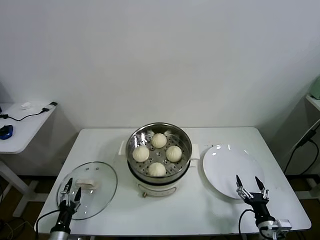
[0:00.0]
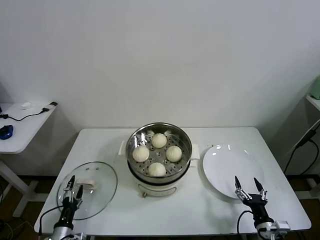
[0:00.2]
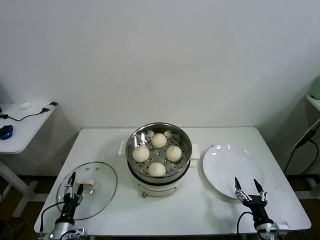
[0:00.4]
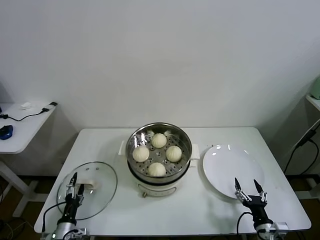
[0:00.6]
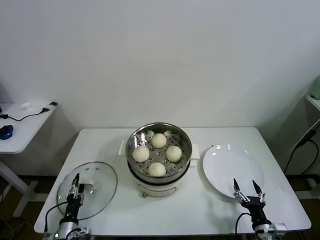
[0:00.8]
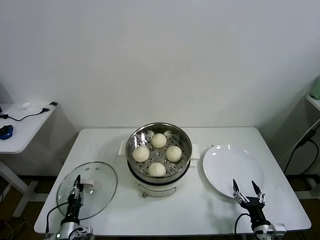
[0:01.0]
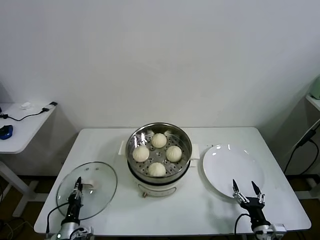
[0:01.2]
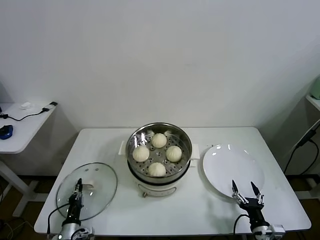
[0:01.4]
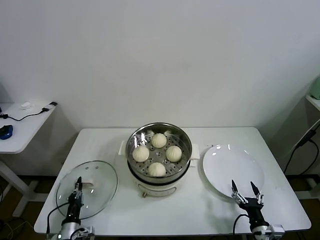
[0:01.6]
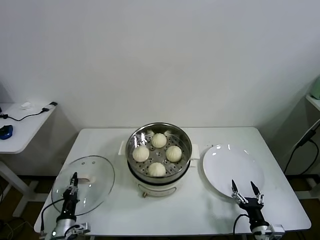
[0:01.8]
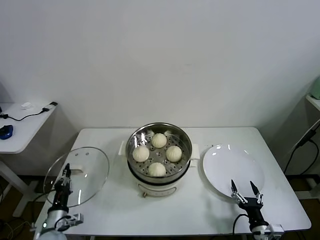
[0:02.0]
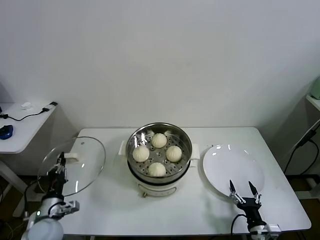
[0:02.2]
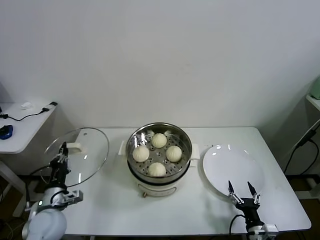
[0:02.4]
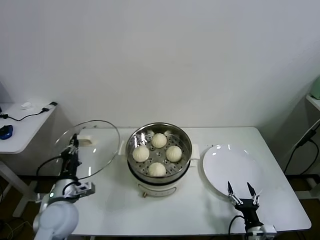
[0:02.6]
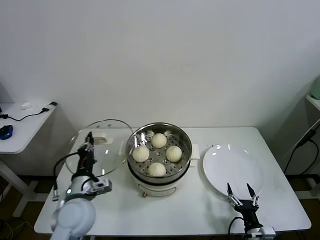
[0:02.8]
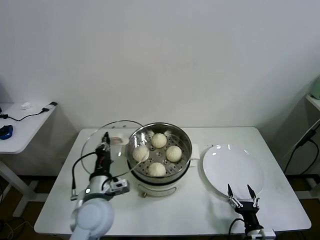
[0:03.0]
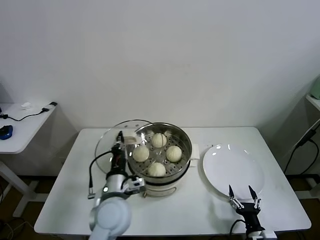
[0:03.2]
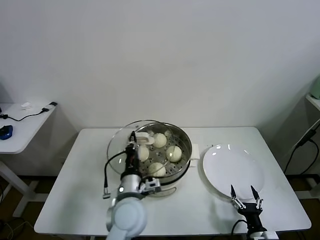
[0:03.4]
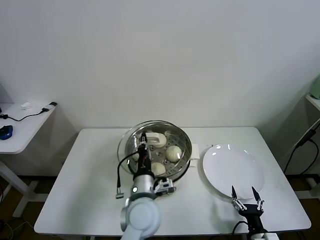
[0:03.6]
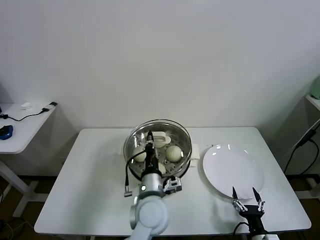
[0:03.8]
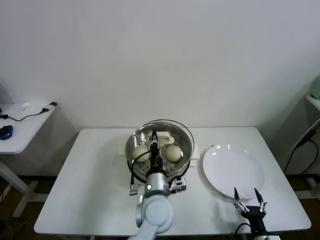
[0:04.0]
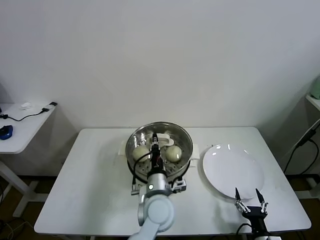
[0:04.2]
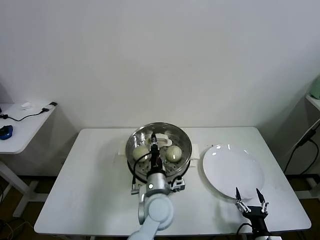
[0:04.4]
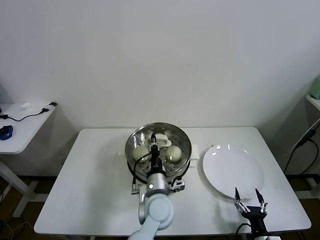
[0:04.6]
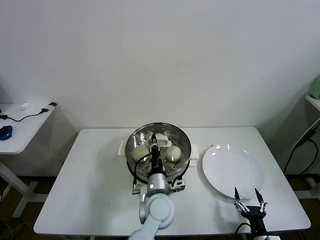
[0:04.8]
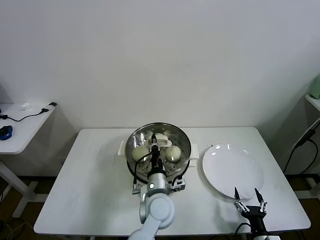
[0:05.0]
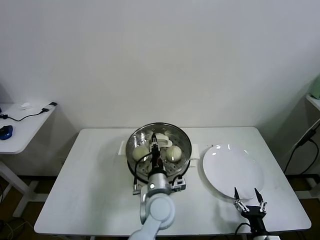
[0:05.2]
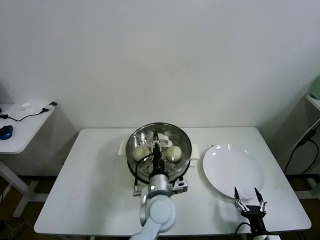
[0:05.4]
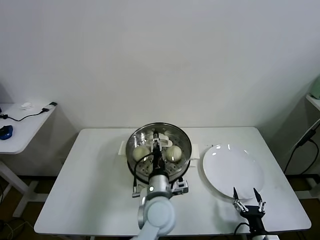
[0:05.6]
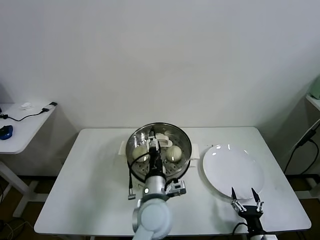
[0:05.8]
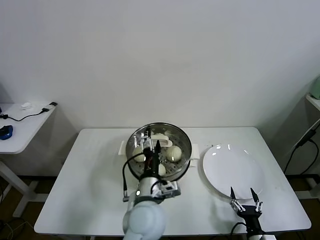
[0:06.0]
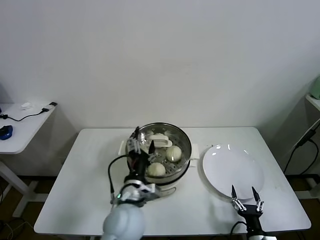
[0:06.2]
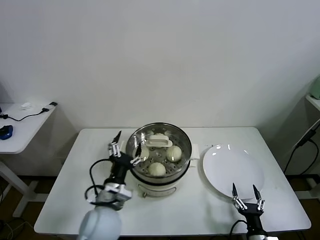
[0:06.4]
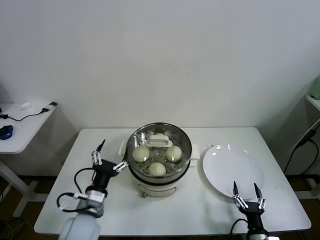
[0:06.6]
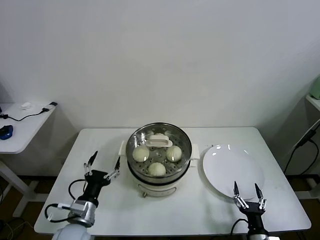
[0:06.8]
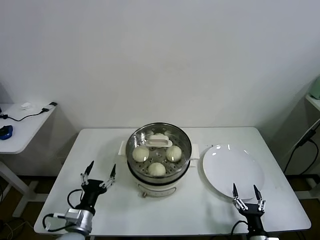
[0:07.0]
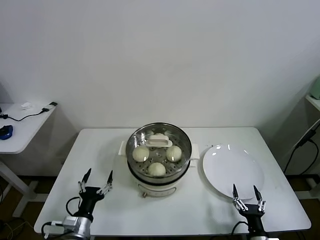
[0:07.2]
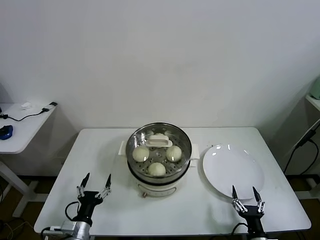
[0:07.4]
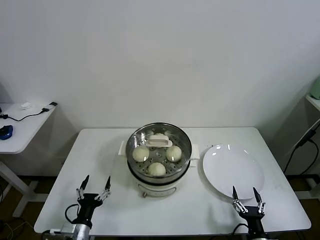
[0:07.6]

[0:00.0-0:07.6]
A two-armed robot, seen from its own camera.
Task of the whole recording: take steamed baozi put them in steamer.
Step, 1.6 to 5.6 s: Place the pot lid on the steamer with left gripper.
0.0 to 1.6 s: The left gripper changes place by roughly 5 cm, and closes.
1.6 to 3.0 s: The left gripper heads upward and to the right, covering roughly 30 cm.
3.0 to 4.6 s: The left gripper heads to the right, covering some 20 cm.
4.6 to 6.0 s: The left gripper shifts by roughly 5 cm, and opens.
6.0 to 7.6 s: The left gripper is displaced to the left and downward by approximately 30 cm.

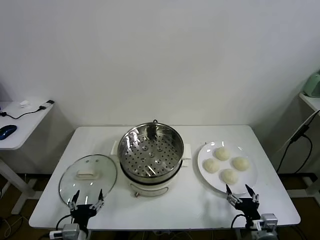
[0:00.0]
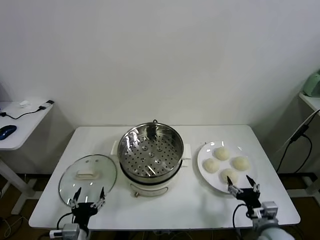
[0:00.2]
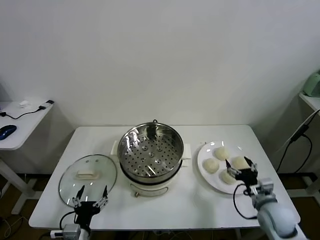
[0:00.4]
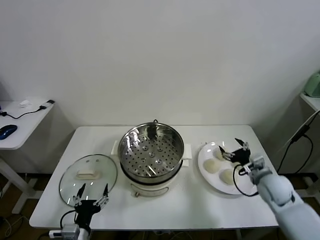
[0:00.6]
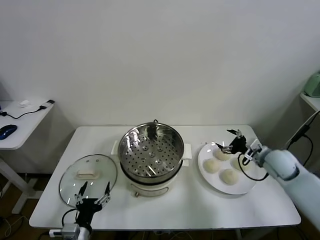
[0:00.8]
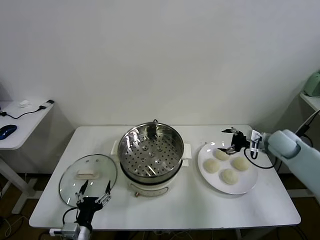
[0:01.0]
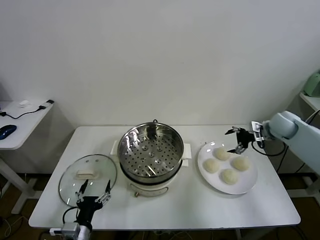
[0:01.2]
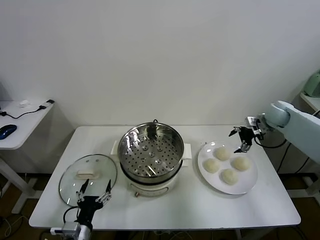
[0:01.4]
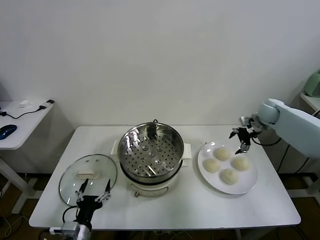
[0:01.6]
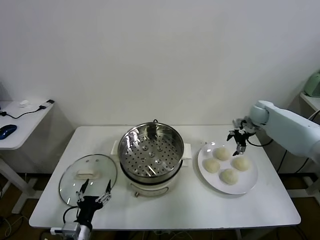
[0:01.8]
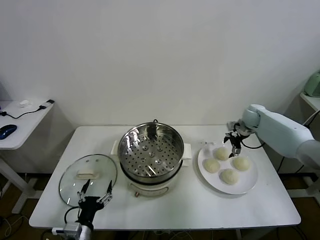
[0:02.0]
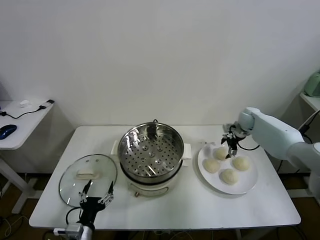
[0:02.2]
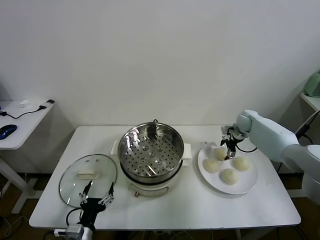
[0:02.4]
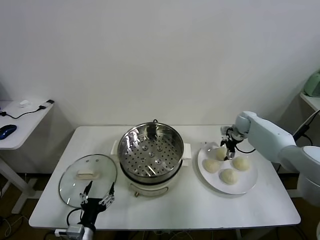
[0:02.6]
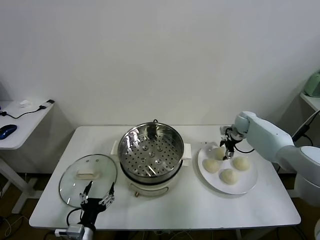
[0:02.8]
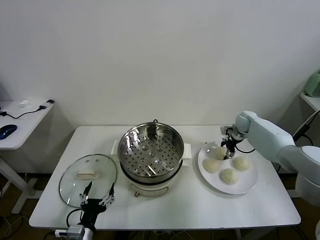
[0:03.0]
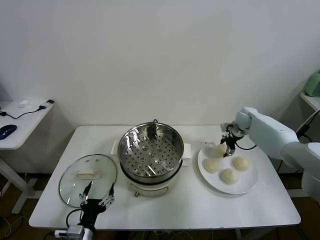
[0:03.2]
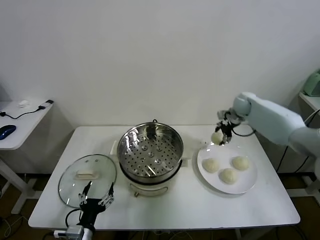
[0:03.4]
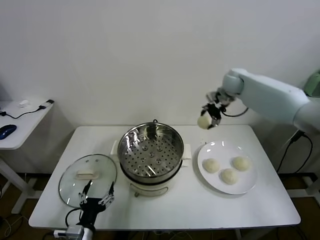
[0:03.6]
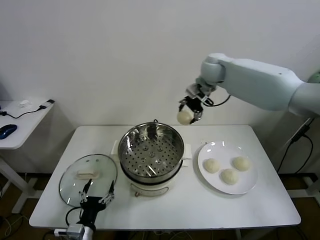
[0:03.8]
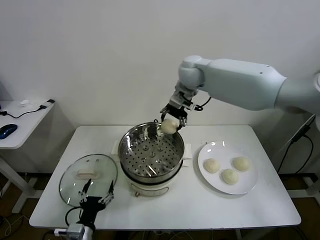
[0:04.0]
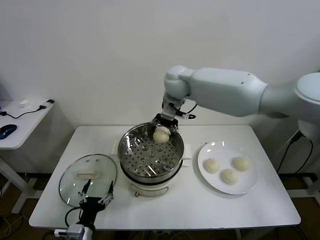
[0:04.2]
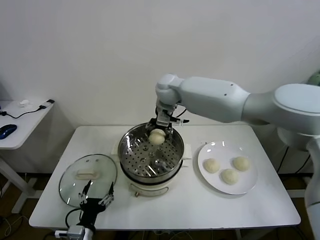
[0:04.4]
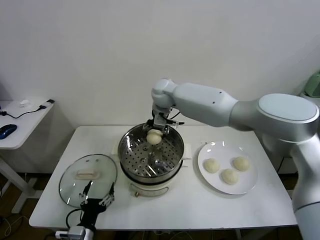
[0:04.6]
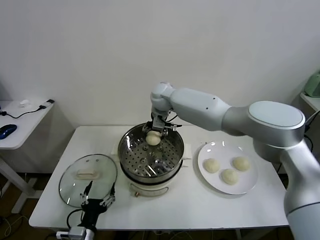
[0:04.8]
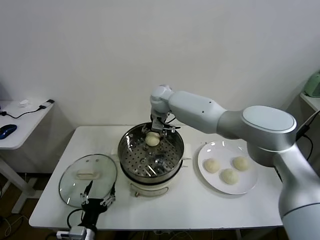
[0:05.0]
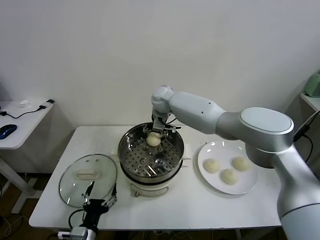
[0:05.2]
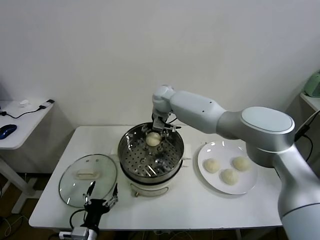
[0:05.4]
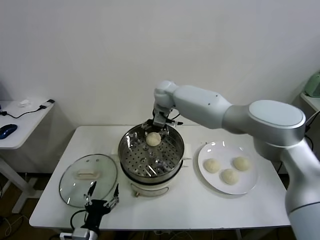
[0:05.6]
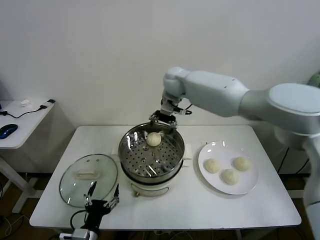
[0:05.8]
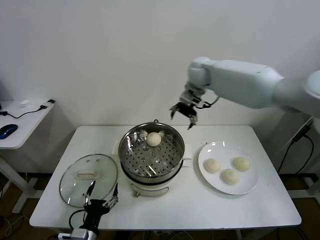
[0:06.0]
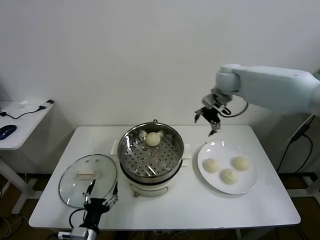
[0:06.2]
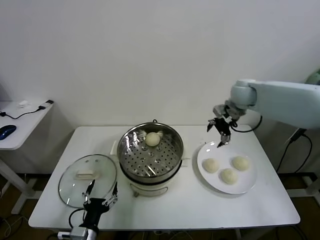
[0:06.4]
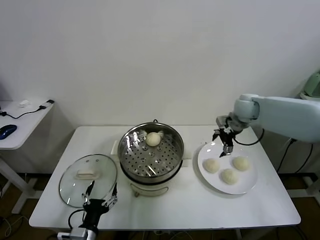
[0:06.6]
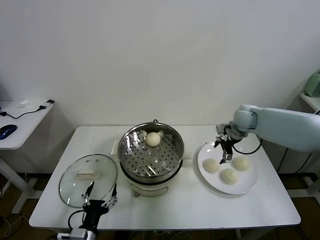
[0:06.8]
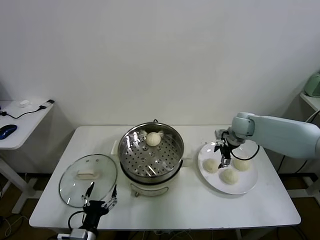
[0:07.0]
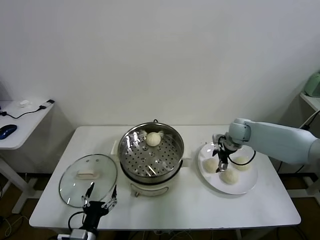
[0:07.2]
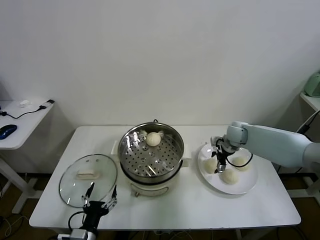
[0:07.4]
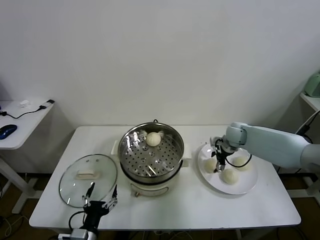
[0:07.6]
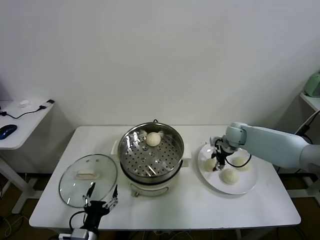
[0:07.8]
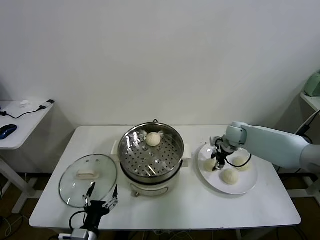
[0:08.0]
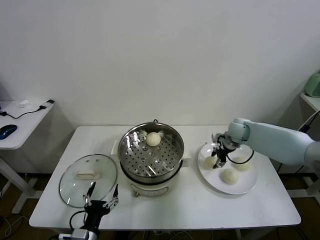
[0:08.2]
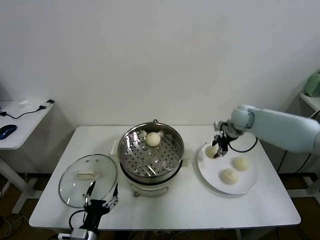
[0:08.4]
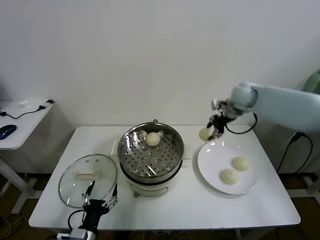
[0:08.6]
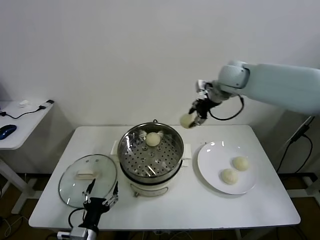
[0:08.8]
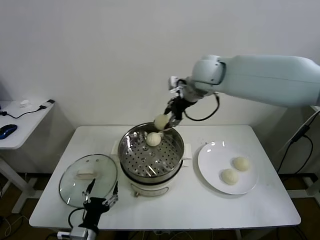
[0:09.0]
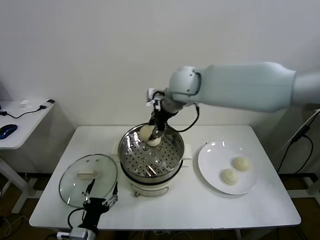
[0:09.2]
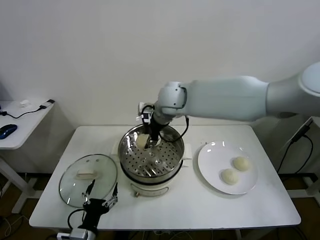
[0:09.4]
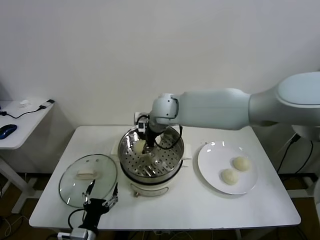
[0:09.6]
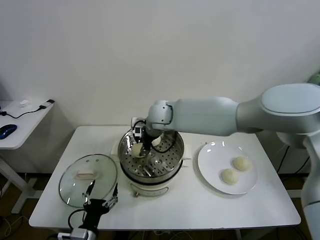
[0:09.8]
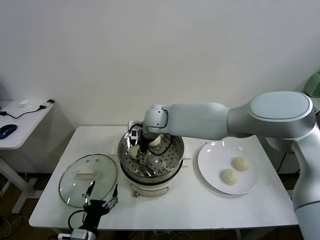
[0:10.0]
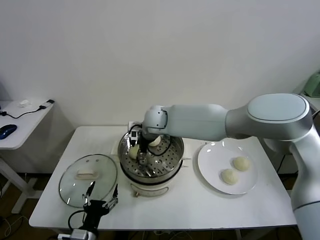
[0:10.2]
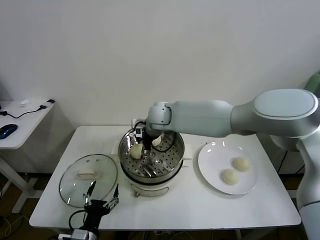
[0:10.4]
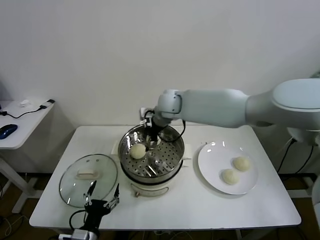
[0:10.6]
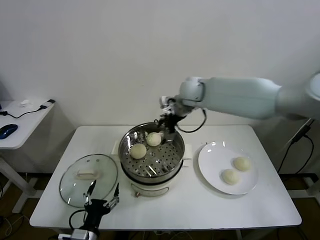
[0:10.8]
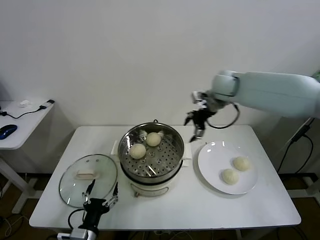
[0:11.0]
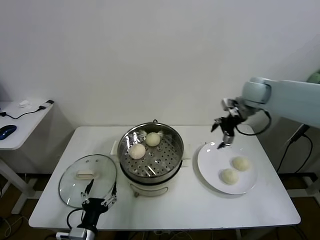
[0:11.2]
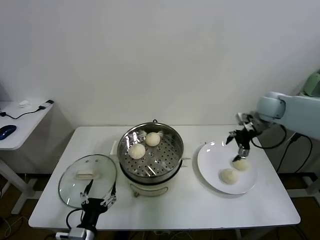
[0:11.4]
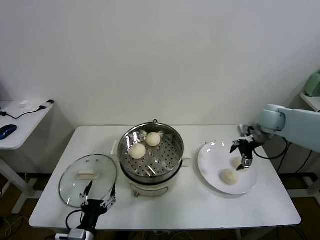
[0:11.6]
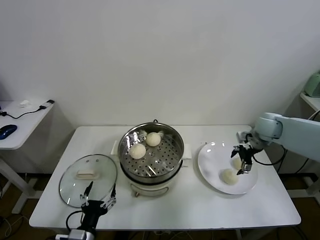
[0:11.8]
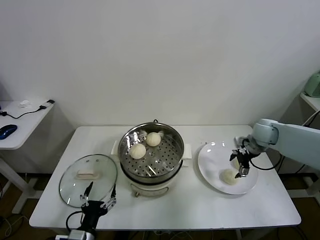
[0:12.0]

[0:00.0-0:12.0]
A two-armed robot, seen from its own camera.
Task of the whole recording: take steamed baozi put them in steamer.
Step, 0.0 to 2.8 s: Grasp the baozi in the plate with right gripper.
Step, 3.2 to 5.4 s: Place the baozi on the steamer with right gripper.
Step, 5.6 to 7.8 s: Grasp the baozi in the plate with right gripper.
Step, 8.2 to 10.4 s: Place the baozi on the steamer with right gripper.
1.6 to 3.0 s: The right gripper shifts some 5 cm downward, and closes up.
3.0 to 4.4 s: The right gripper travels to the left and upward by approximately 40 cm.
4.4 to 6.0 s: The right gripper heads to the right, covering about 15 cm, and opens its fingers.
6.0 to 7.6 s: The right gripper heads downward and to the right, covering roughly 25 cm.
7.6 to 9.0 s: The right gripper travels upward and to the left by roughly 35 cm, and closes up.
9.0 to 10.4 s: The right gripper goes roughly 15 cm downward and to the left, and opens.
10.4 to 12.0 s: The right gripper travels to the right by some 35 cm.

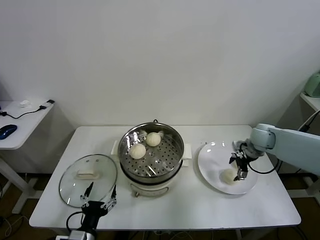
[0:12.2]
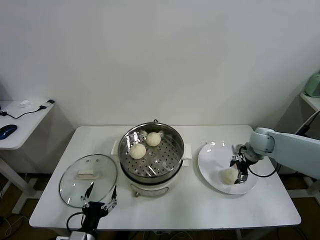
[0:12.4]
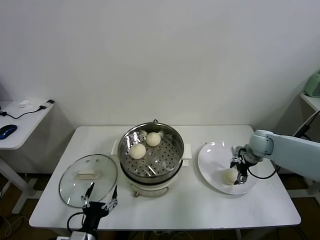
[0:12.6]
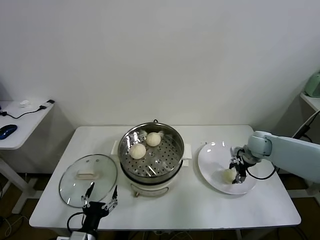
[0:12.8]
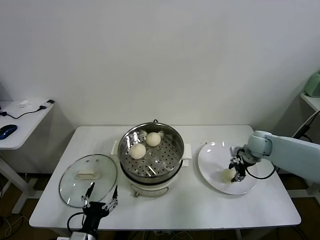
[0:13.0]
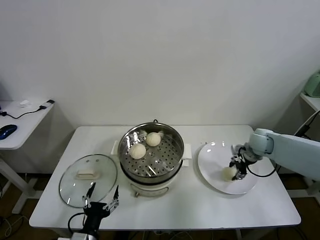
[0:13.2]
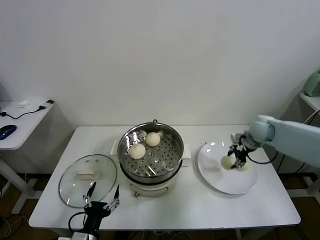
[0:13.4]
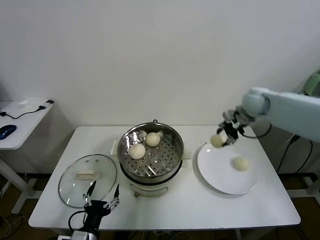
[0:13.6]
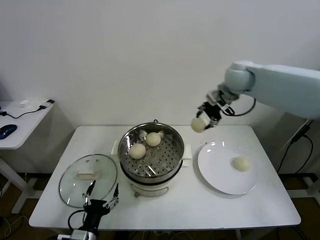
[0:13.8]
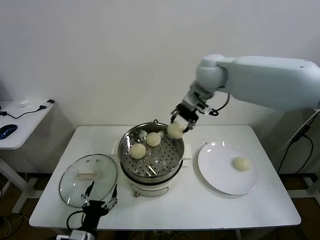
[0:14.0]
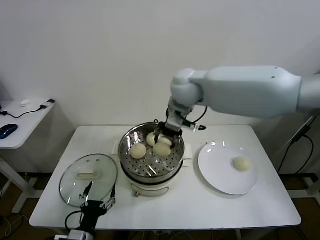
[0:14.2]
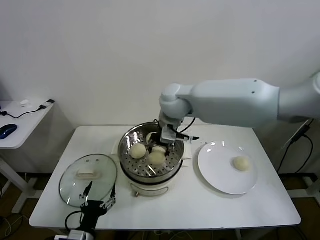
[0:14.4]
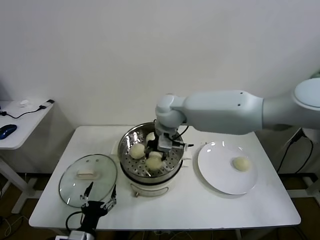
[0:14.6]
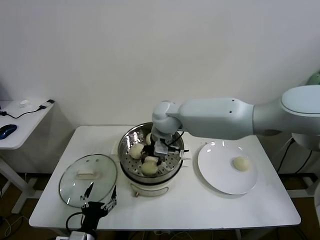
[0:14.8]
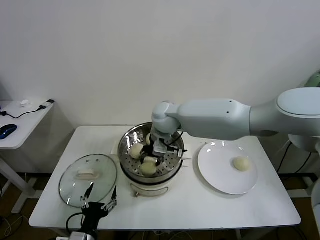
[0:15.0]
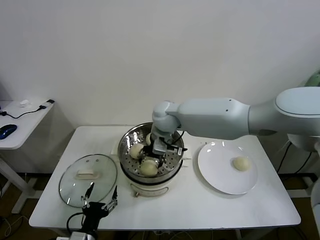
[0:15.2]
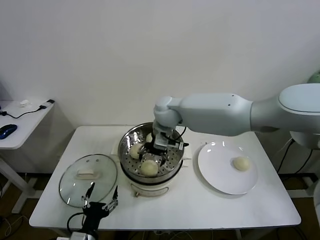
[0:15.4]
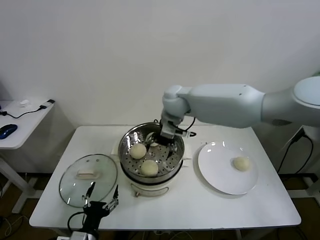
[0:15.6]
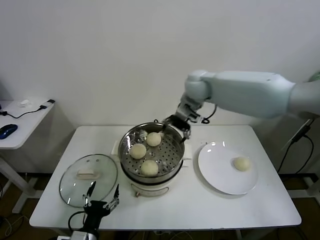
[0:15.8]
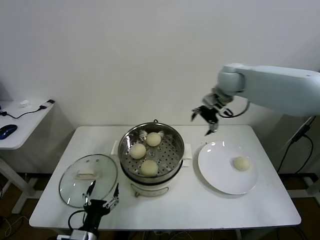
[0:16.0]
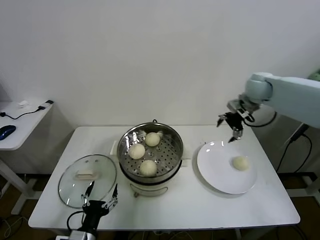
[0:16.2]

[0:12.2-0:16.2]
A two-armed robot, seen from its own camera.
Task of the whole recording: take steamed baozi put them in steamer.
Step, 13.0 to 15.2 s: Place the baozi on the steamer with right gripper.
12.2 to 13.6 s: The right gripper is displaced upward and to the left by about 20 cm, and closes.
13.6 to 14.8 s: The right gripper goes approximately 30 cm to the left.
14.8 to 16.2 s: The right gripper goes approximately 30 cm to the right, and opens its fingers.
